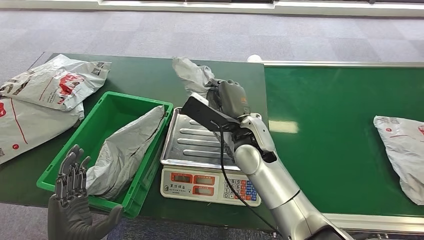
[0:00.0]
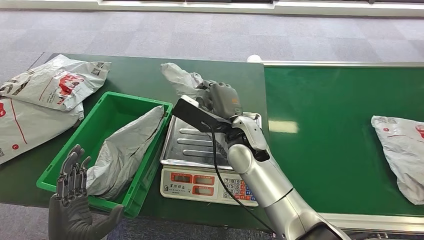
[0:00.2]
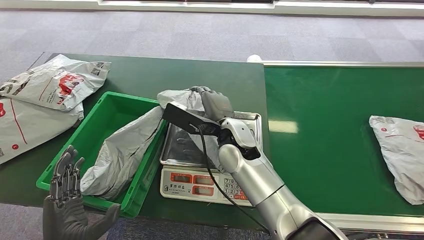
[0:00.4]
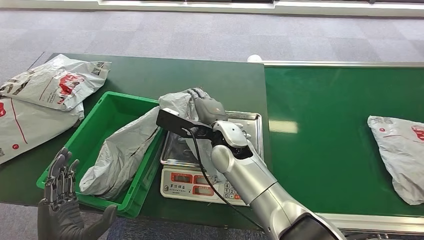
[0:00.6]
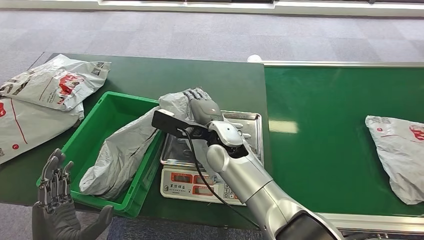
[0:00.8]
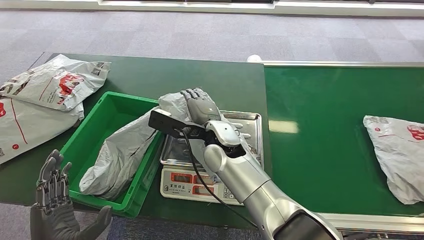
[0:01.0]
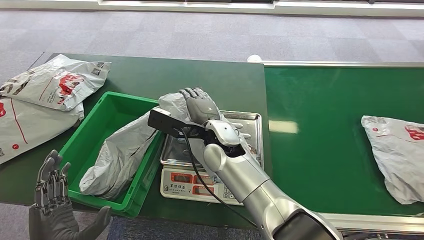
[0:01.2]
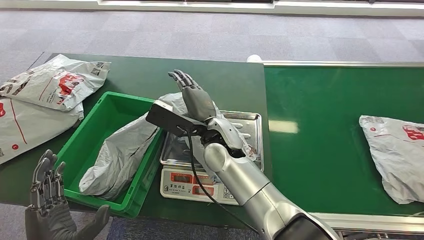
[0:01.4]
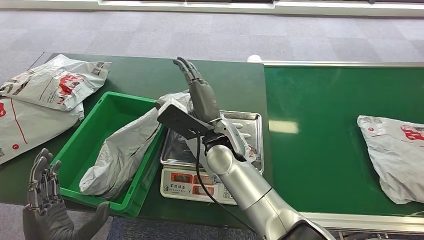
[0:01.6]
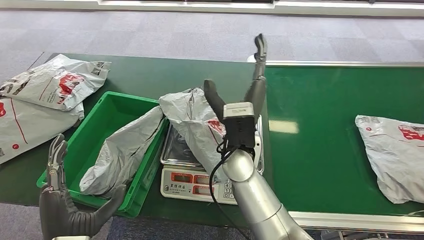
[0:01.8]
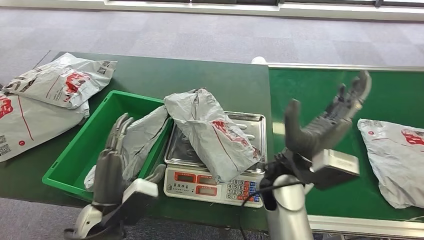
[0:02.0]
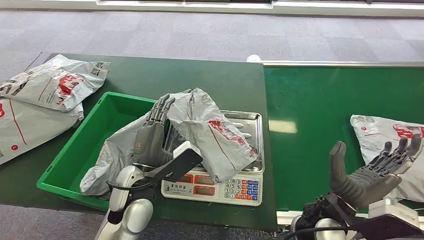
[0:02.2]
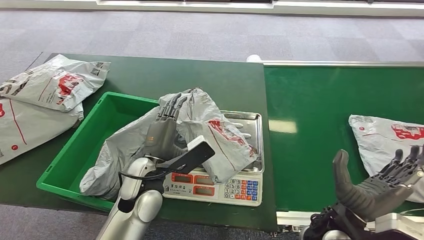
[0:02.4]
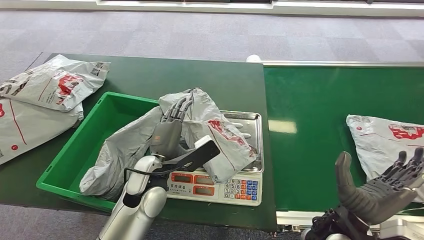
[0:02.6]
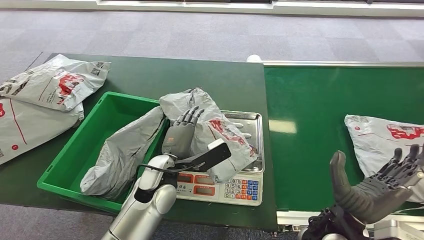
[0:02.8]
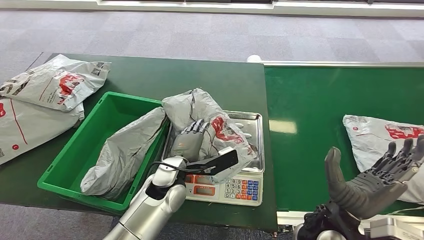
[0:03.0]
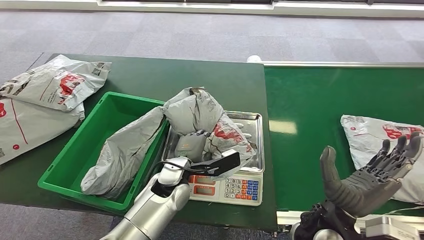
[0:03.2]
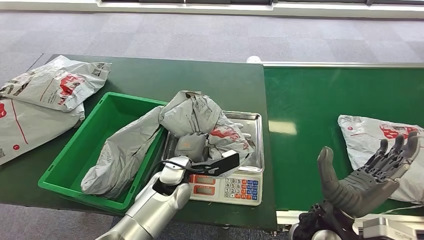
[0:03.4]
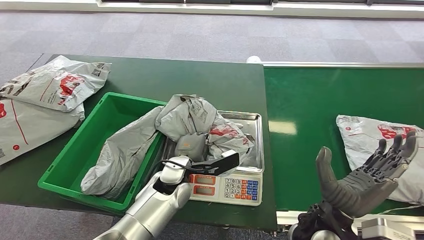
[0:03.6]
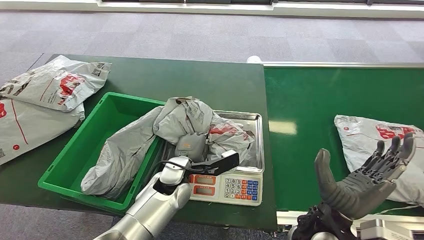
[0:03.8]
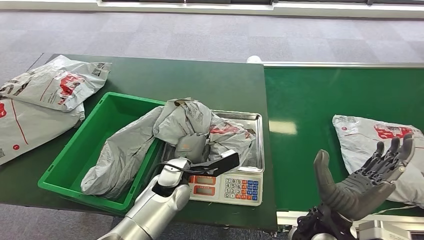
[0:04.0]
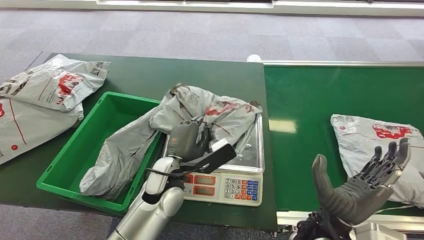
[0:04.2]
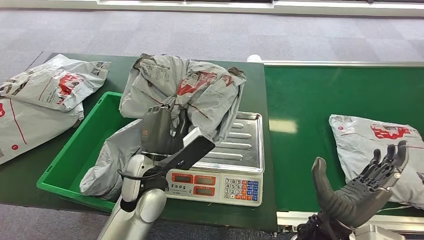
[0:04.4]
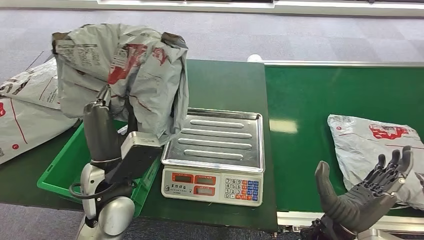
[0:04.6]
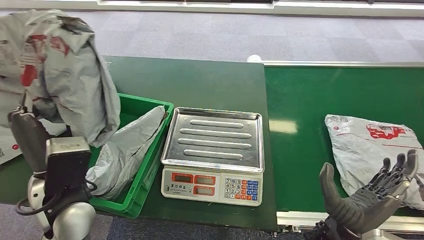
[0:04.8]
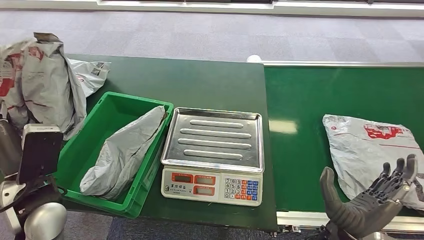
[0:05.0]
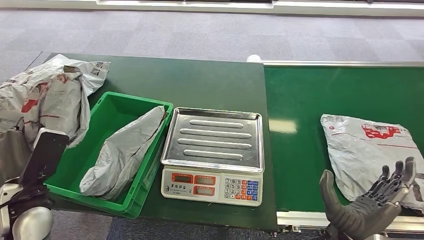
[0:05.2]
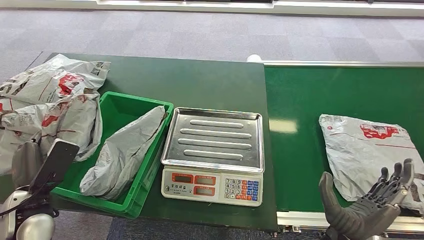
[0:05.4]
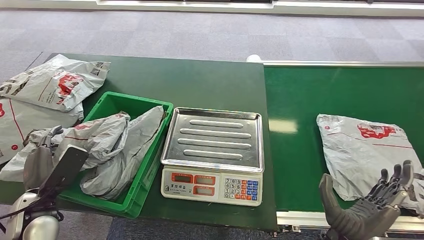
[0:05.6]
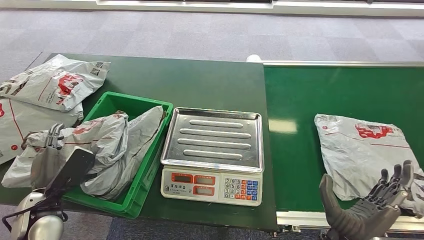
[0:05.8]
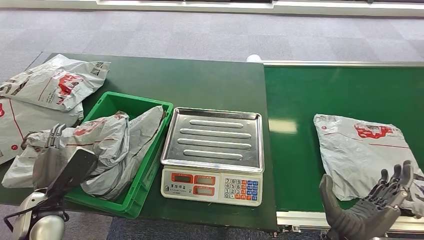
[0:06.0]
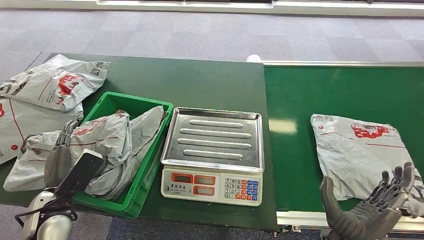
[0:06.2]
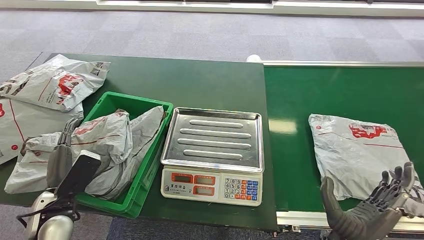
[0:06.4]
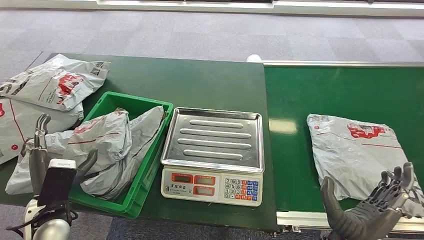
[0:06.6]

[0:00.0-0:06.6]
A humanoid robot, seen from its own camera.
Task of the whole recording: Weigh the package on the weighing device and place it in the left basket.
Step, 0:00.0 to 0:02.2: Place the package onto the inbound machine.
Step, 0:02.4 to 0:05.0: Pick up the package from the inbound machine.
Step, 0:05.2 to 0:06.6: Place the package into the parcel locker.
0:00.0 to 0:01.6: The right hand moves to the left, roughly 5 cm.
